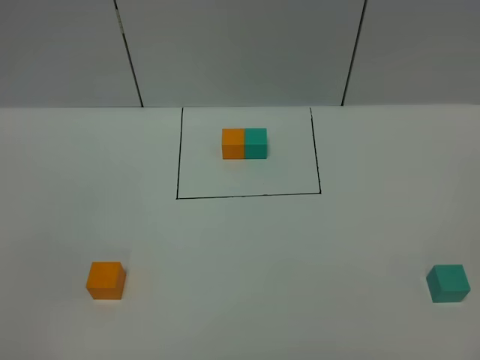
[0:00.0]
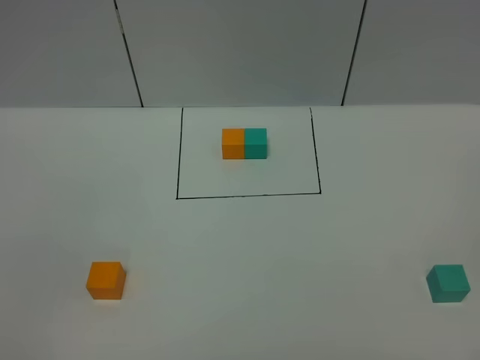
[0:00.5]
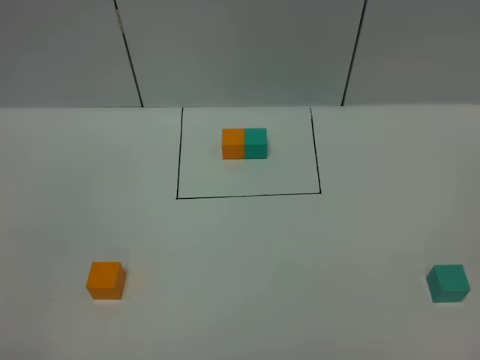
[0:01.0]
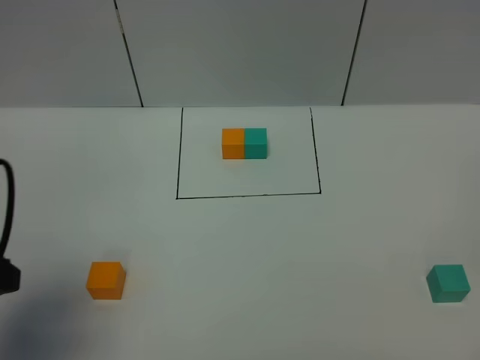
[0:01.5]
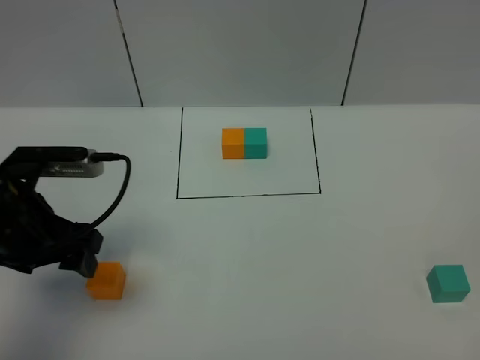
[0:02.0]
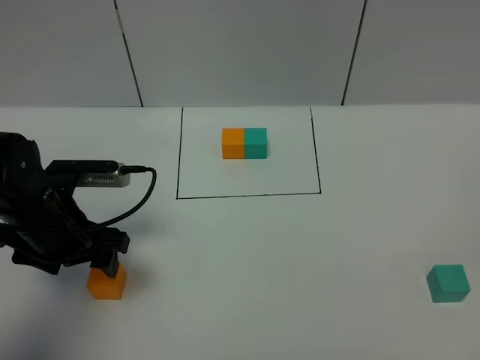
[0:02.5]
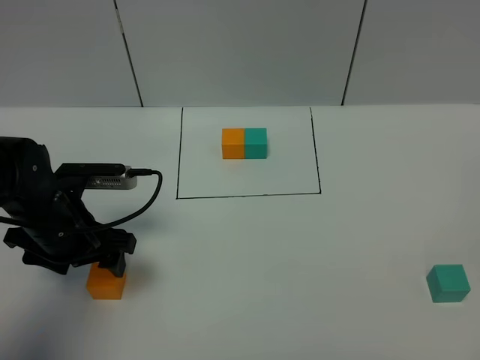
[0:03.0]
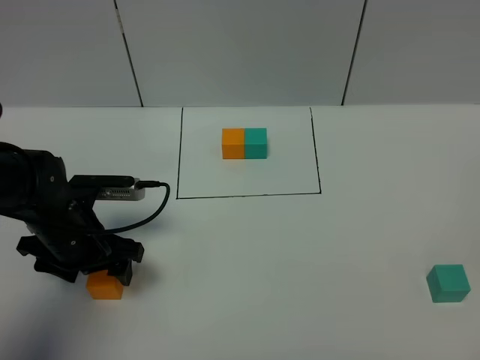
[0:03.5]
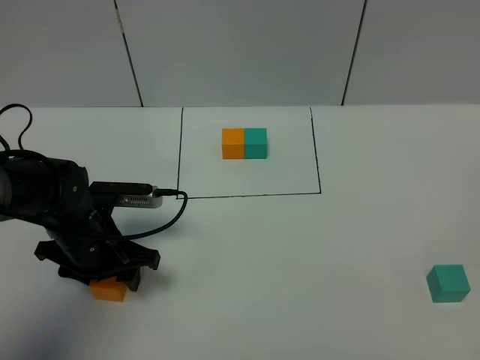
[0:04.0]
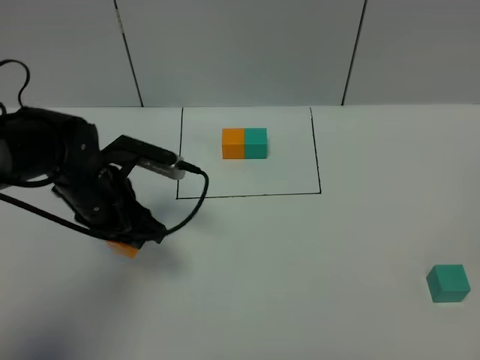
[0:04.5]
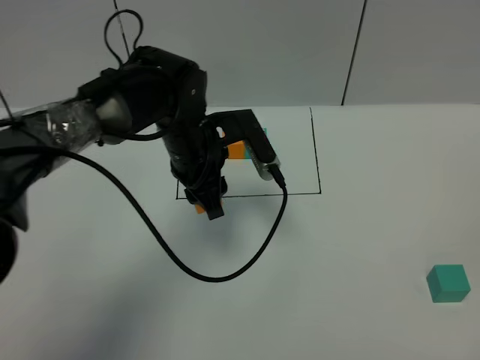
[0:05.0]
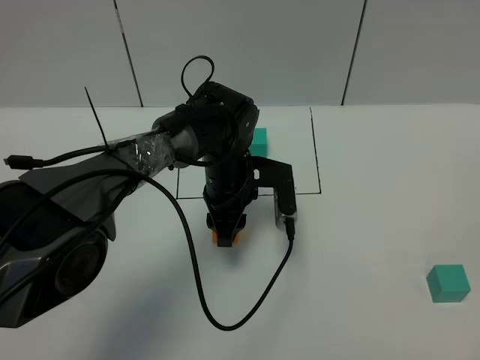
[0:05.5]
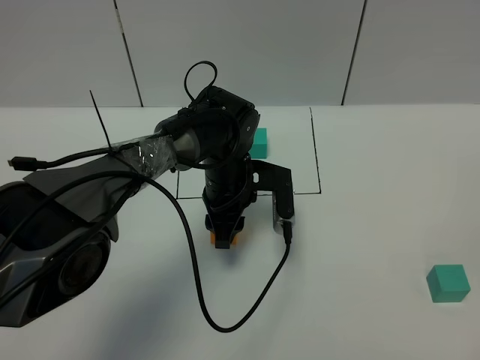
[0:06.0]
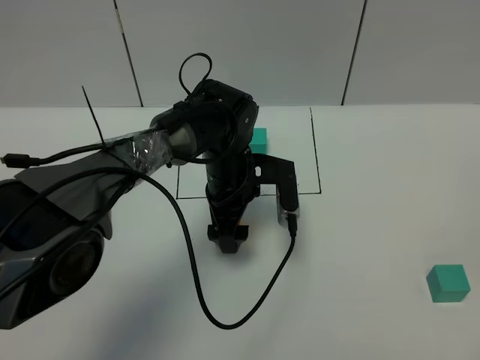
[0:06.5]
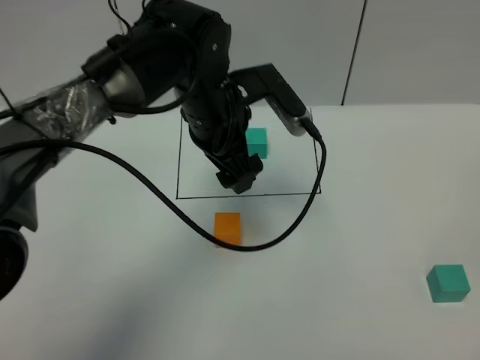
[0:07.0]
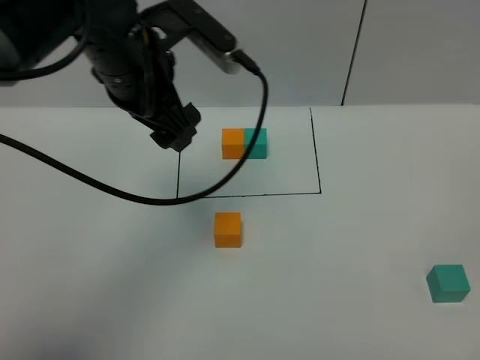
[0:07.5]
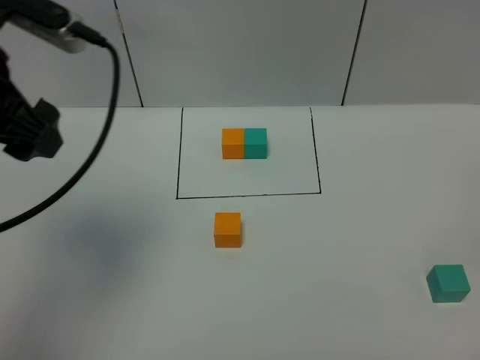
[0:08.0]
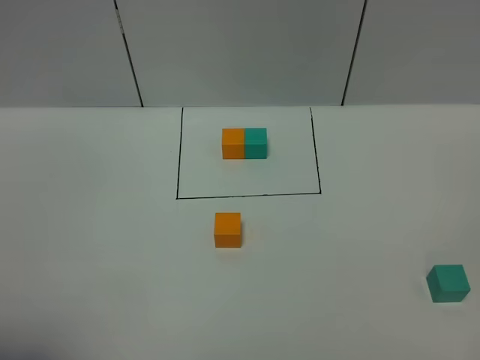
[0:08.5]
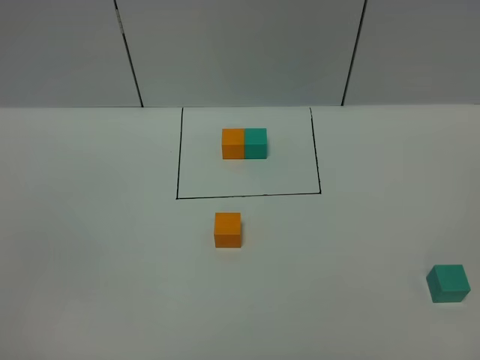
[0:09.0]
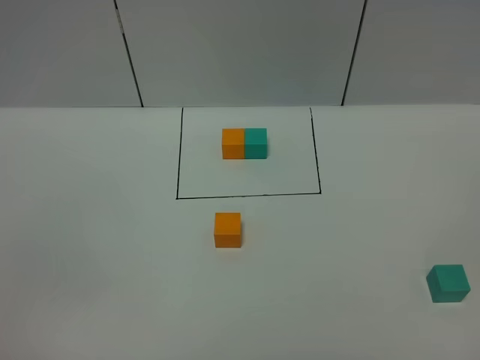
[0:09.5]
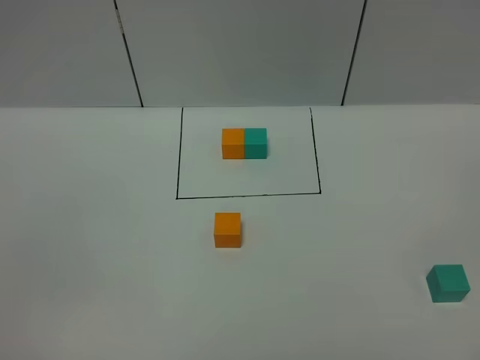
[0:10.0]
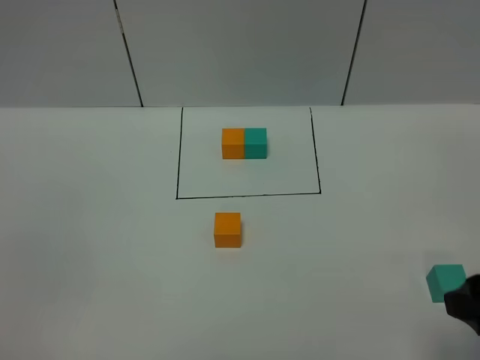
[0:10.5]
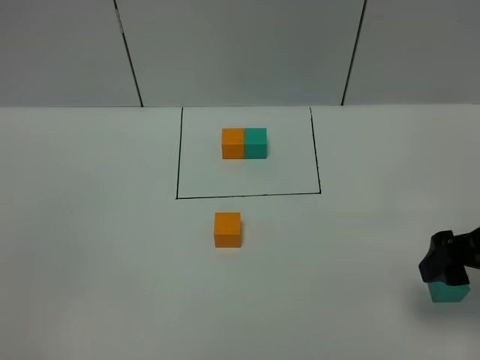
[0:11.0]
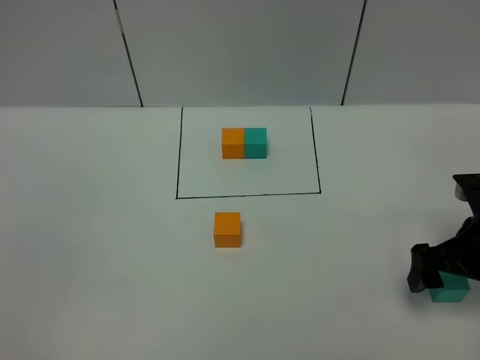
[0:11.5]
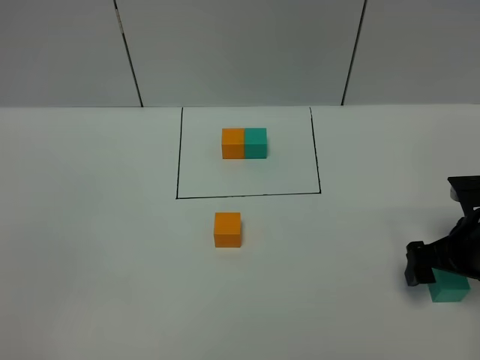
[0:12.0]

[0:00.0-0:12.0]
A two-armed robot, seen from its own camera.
Task of the whole recording: According to the building block template in front, assemble the scattered blocks together.
Step, 0:01.5 to 0:06.5: Put the orange cube in the center of the table.
0:00.0 to 0:02.0: The left gripper moves forward, approximately 30 cm.
0:02.0 to 0:04.0: The left gripper shifts roughly 10 cm downward, and closes its fingers.
0:04.0 to 0:06.0: The left gripper shifts some 20 cm to the right and forward.
0:06.0 to 0:08.0: The left gripper travels upward, to the left and backward by about 35 cm, and opens.
0:08.0 to 0:10.0: The left gripper heads backward, covering some 30 cm.
0:10.0 to 0:12.0: The right gripper shifts some 30 cm forward and downward.

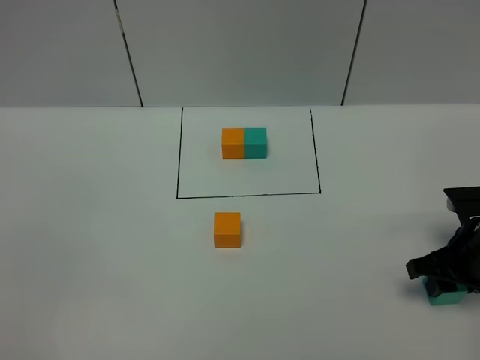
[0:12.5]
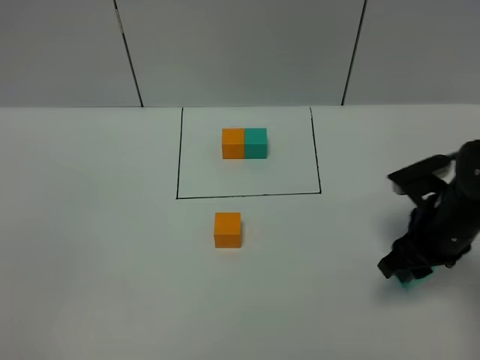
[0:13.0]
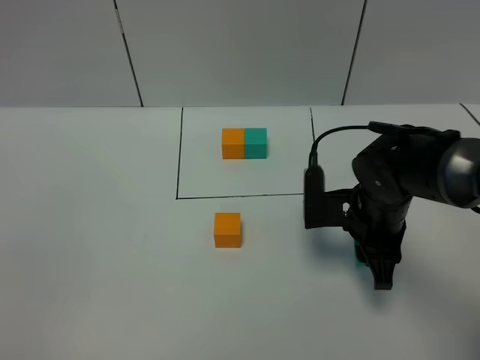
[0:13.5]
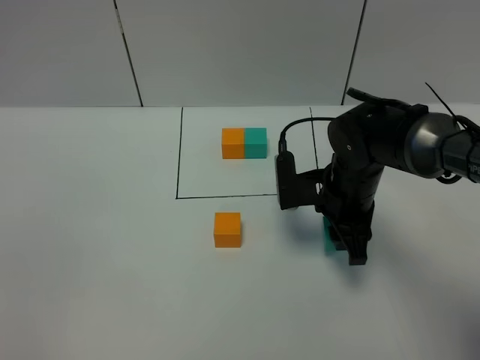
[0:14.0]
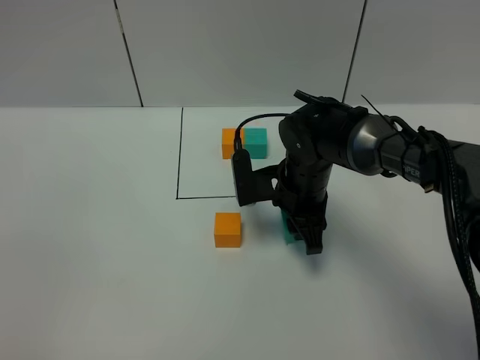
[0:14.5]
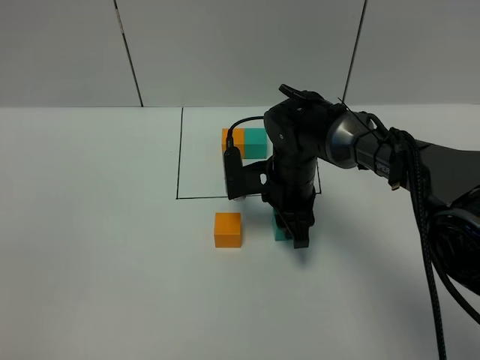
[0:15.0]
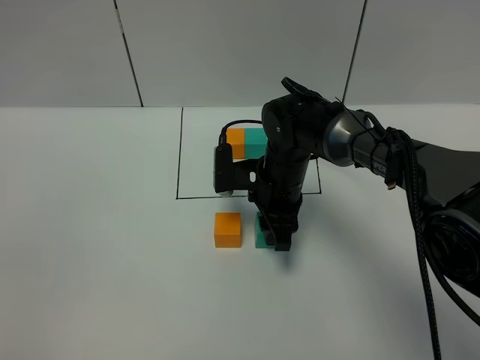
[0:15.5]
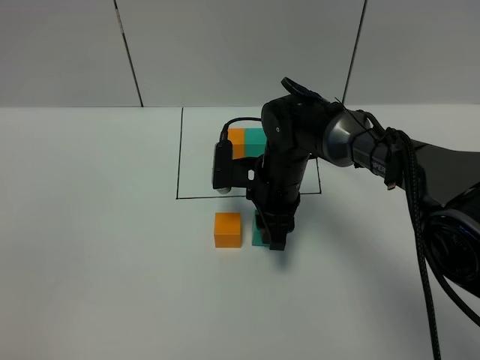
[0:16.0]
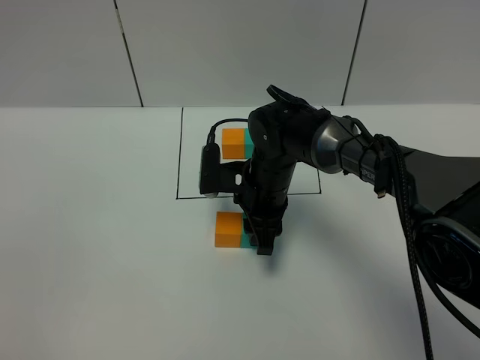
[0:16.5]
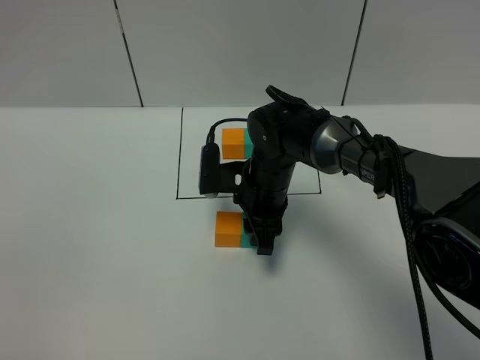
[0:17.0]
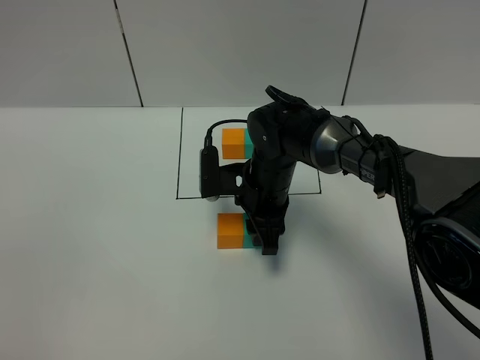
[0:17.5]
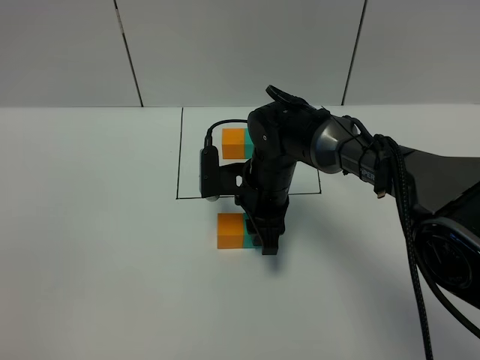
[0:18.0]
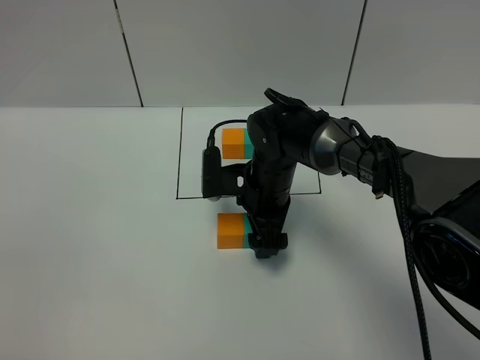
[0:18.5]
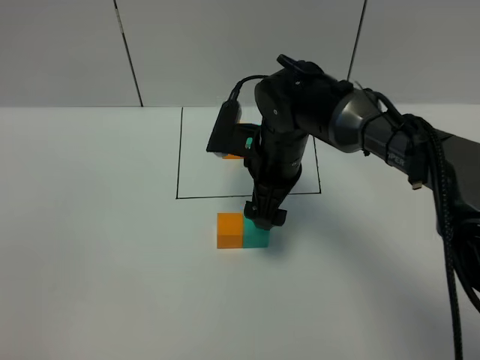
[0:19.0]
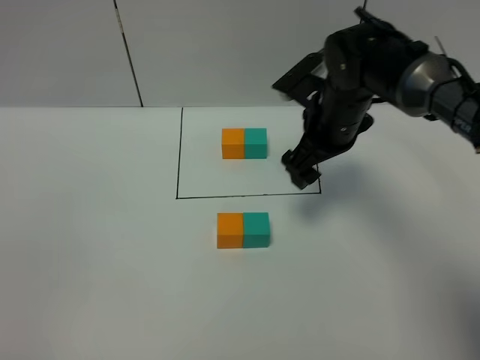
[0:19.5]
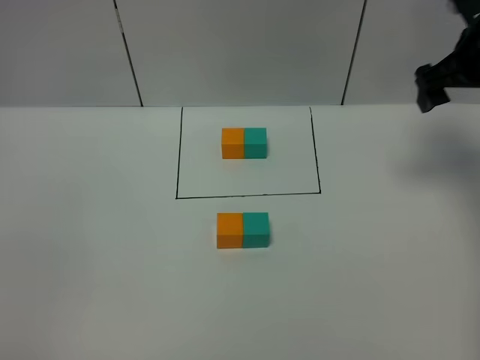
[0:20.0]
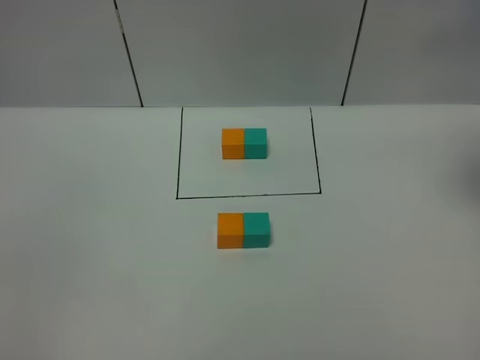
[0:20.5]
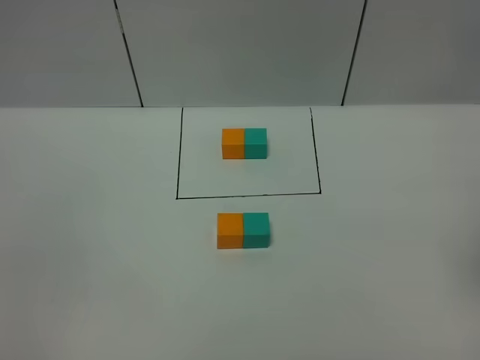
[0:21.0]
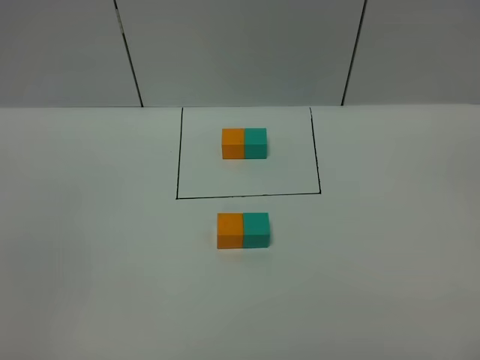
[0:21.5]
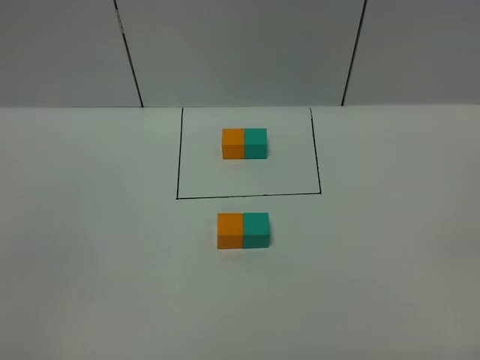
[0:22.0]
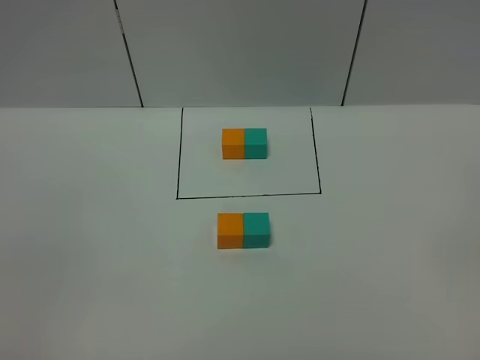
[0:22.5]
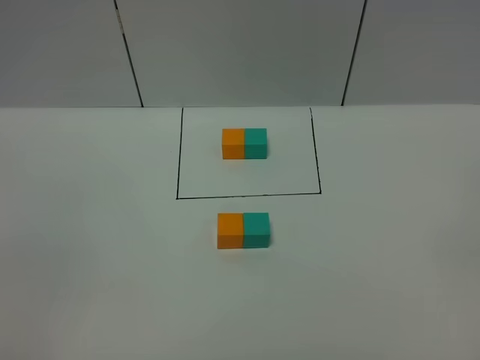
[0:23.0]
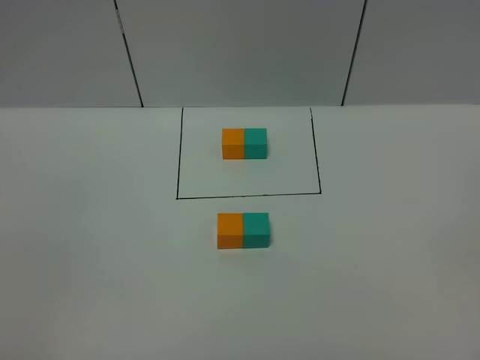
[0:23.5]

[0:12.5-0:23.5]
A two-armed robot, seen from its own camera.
Task of the whole recording: According to the building block template in front, assemble the scattered blocks together.
Step, 0:12.5 to 0:18.5: Put the green cube on the right of the orange cube.
0:12.5 to 0:14.5: The right gripper goes about 25 cm to the left and forward.
0:14.5 to 0:18.0: The grippers make only small movements.
0:18.0 to 0:20.0: The right gripper moves to the right and upward, roughly 30 cm, and opens.
0:20.0 to 0:21.5: The right gripper moves backward, approximately 40 cm.

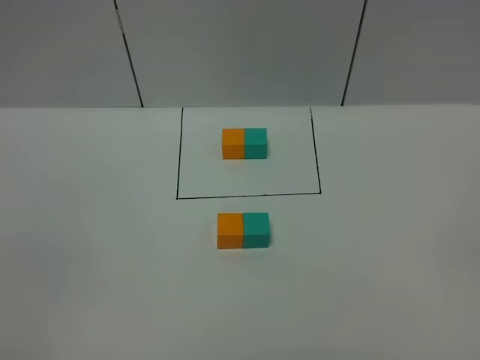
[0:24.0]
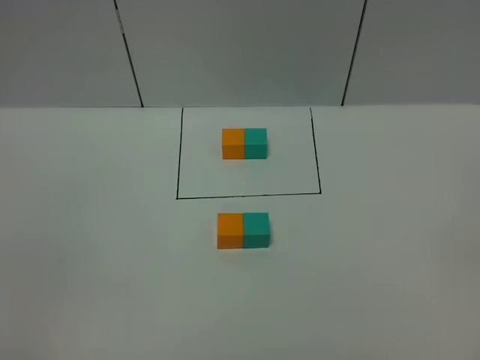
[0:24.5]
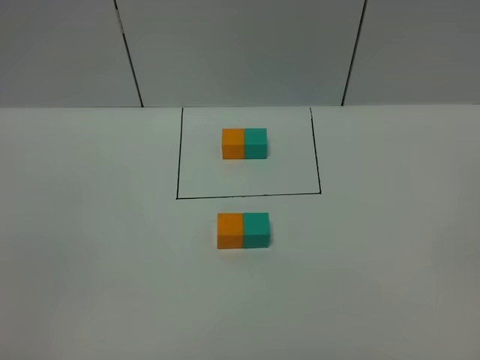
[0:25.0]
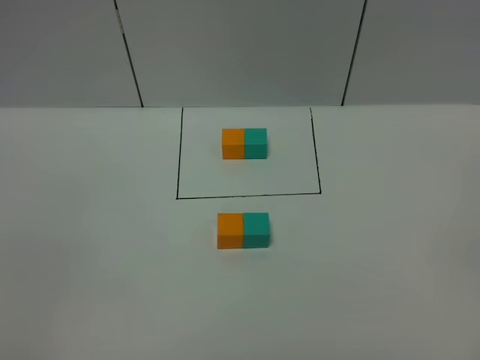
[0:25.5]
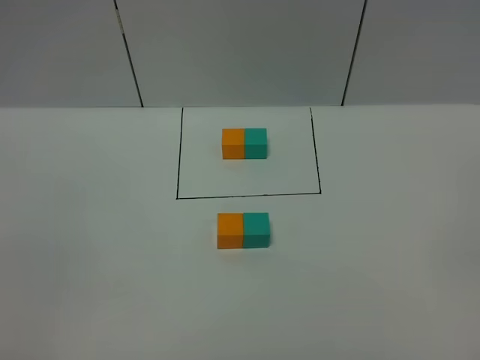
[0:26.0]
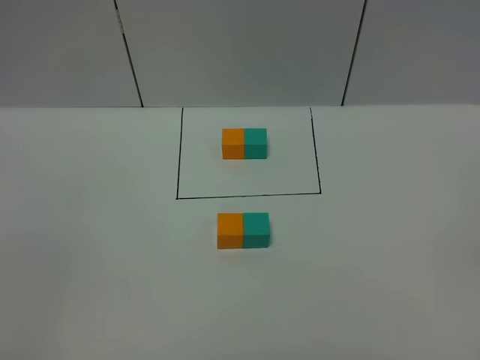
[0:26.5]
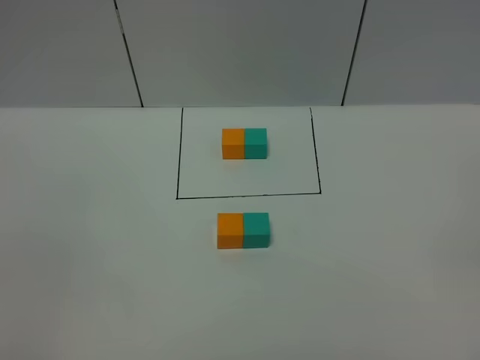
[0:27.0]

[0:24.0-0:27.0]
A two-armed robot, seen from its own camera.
Task of the whole recording: According to the building block template in front, assemble the scattered blocks together.
0:25.5 to 0:27.0: Both grippers stay about where they are.
